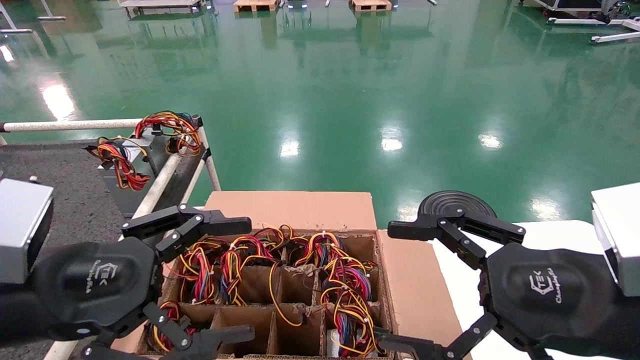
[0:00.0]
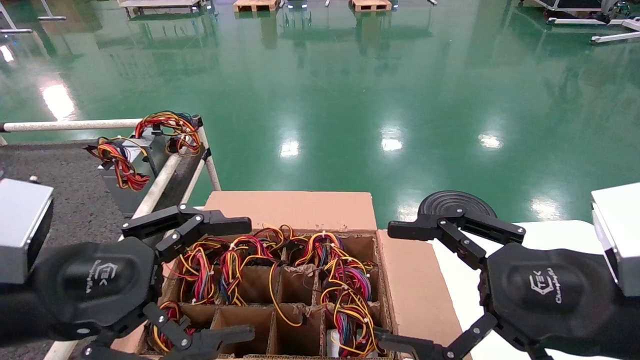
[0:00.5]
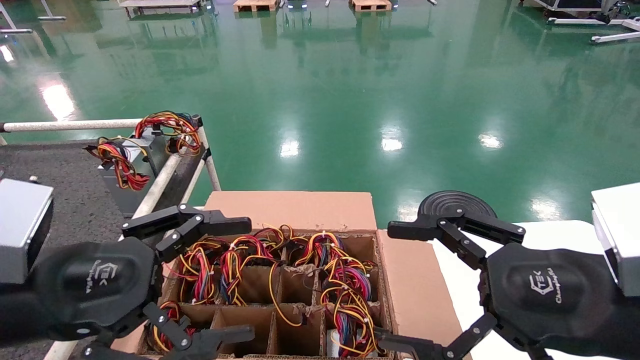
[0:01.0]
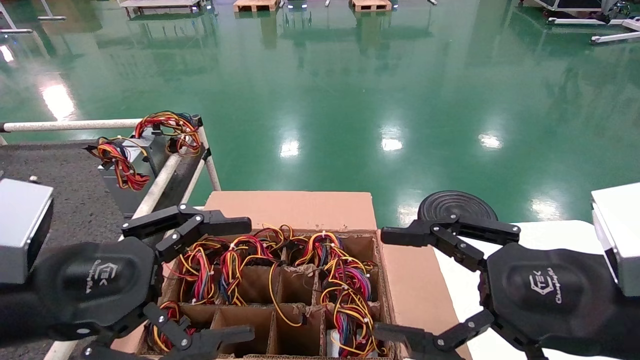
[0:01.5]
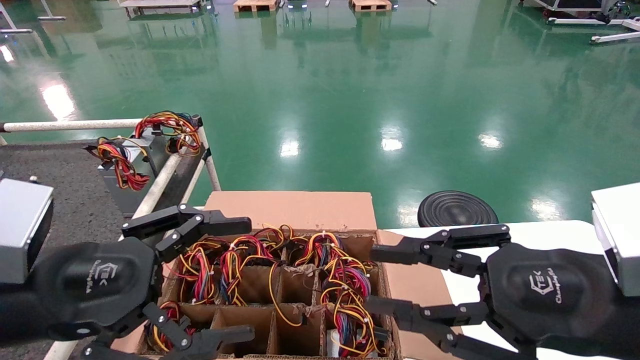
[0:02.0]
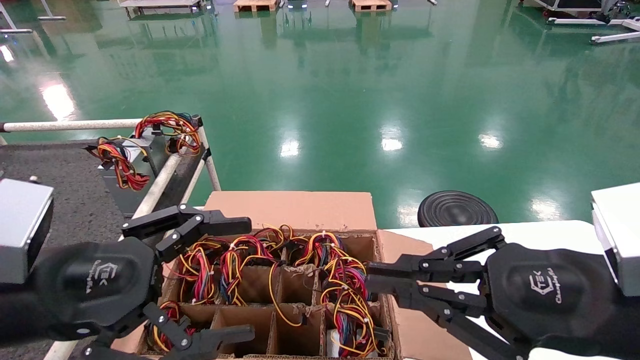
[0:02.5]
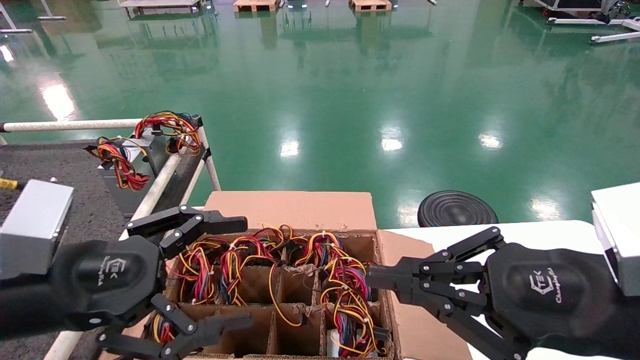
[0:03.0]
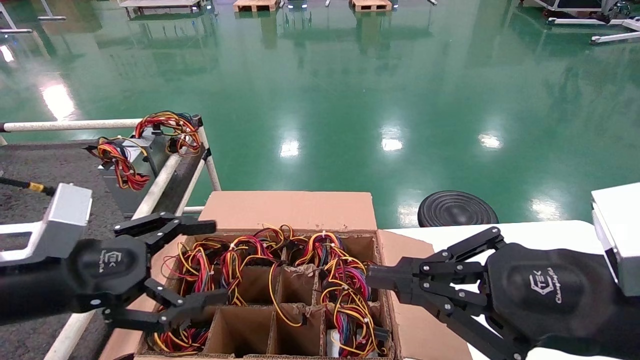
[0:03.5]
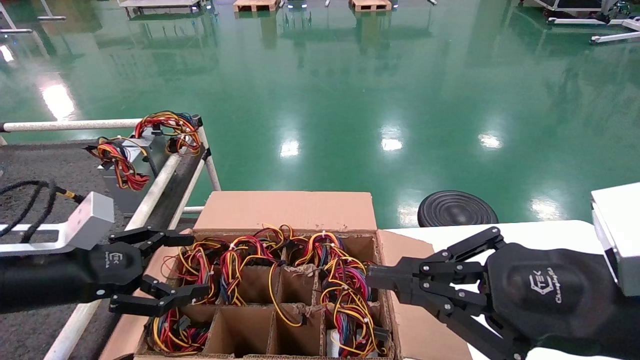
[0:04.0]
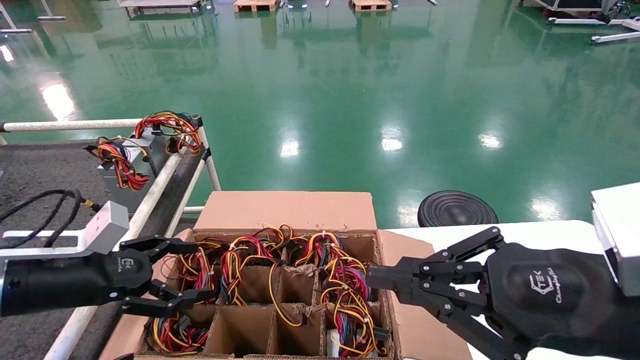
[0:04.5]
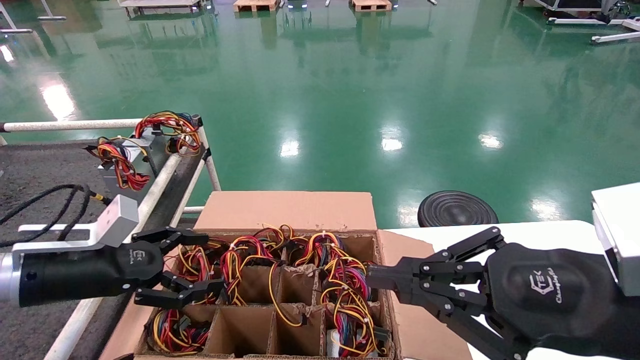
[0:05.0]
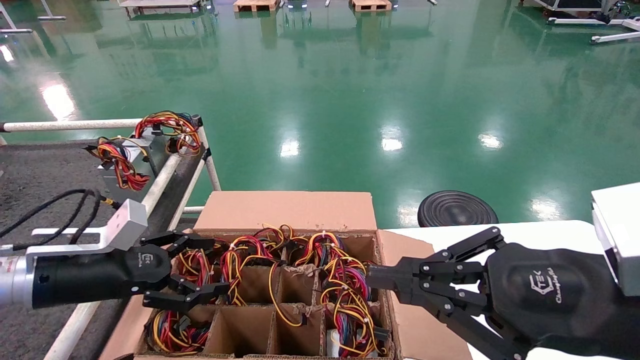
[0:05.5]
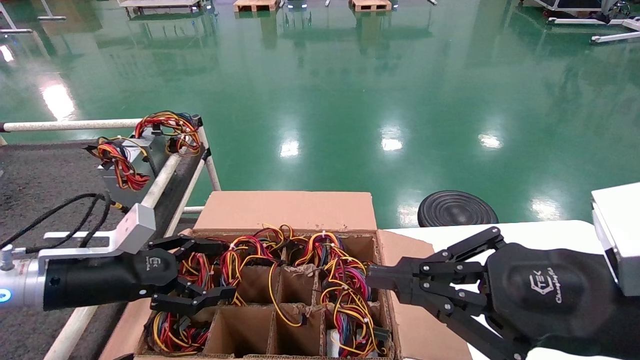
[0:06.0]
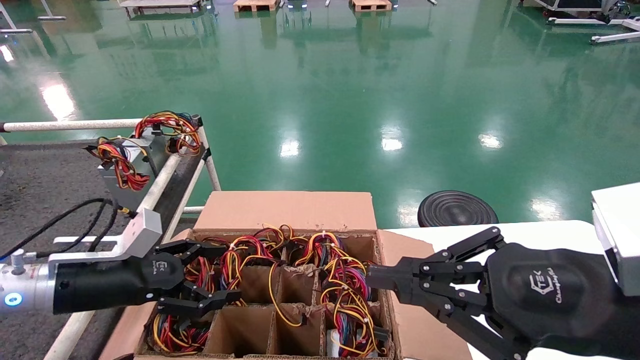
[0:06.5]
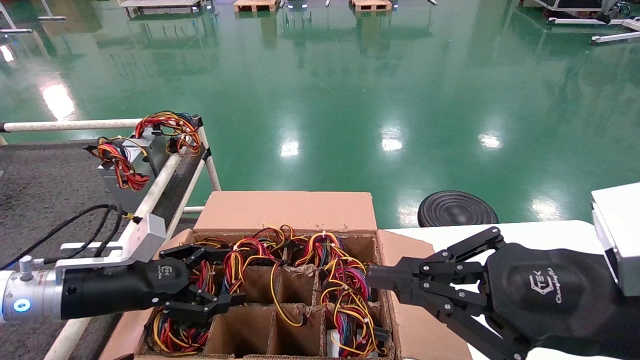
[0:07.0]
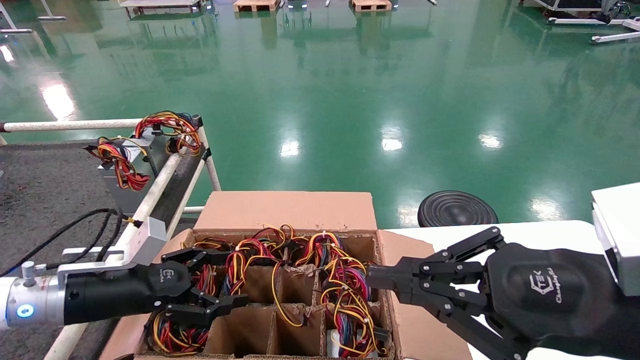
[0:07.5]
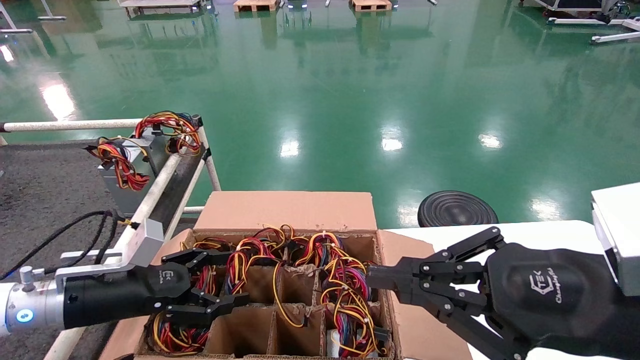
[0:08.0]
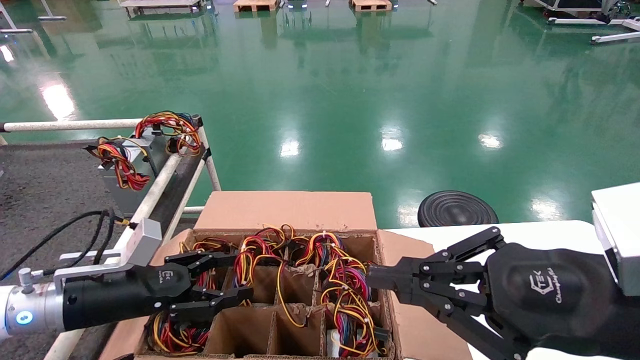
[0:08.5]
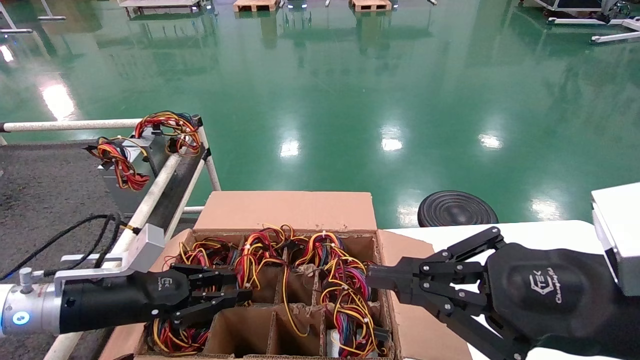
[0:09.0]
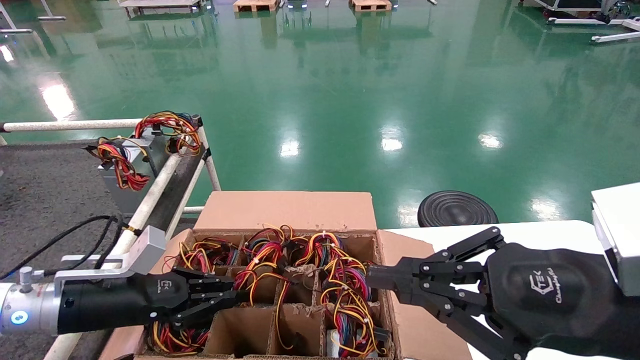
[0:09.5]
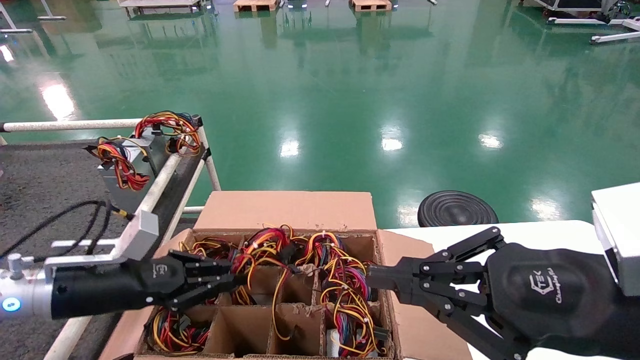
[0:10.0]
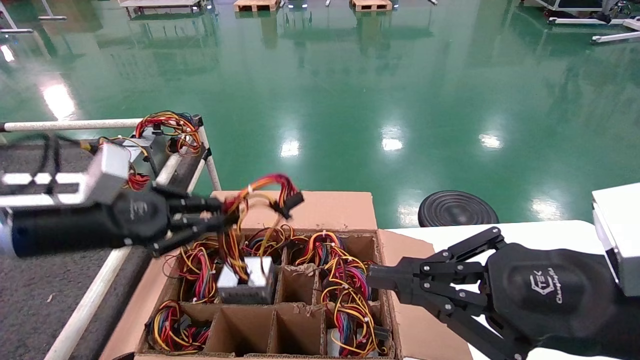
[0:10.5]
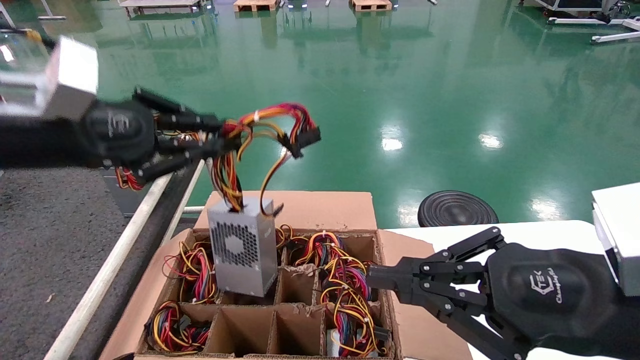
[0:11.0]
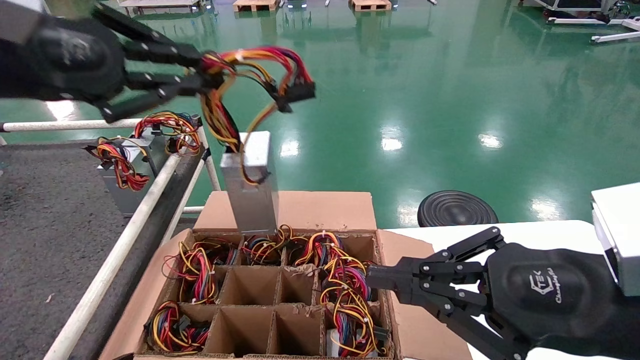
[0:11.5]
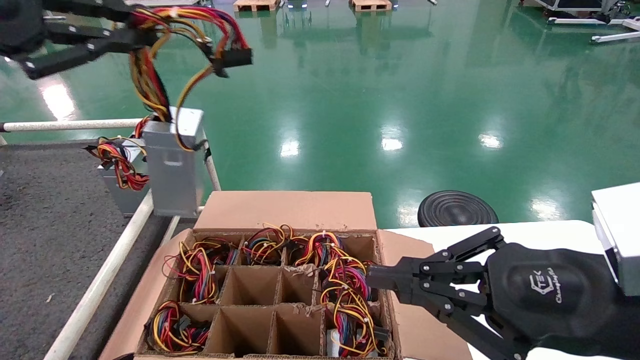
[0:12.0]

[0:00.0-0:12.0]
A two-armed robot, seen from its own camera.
Step, 0:03.5 to 0:09.0: Grab and lift the power supply from the large box.
0:00.0 to 0:02.0: The right gripper closes up.
0:02.0 to 0:04.0: The right gripper closes its fingers; the left gripper heads forward and to the left, covering some 10 cm.
0:04.0 to 0:06.0: The left gripper ends up approximately 5 cm from where it was.
0:06.0 to 0:08.0: The grippers stay close to where they were, moving slightly.
0:08.0 to 0:10.0: The left gripper closes up.
0:10.0 to 0:12.0: The left gripper shifts about 30 cm upward.

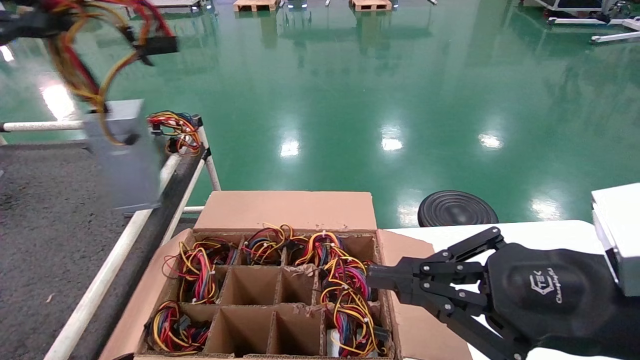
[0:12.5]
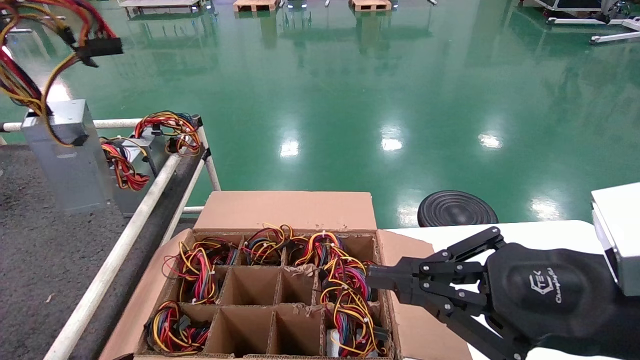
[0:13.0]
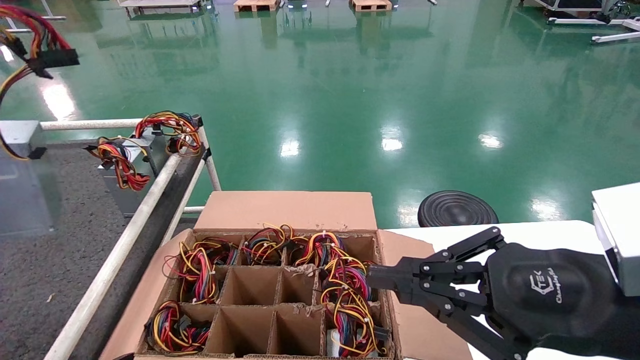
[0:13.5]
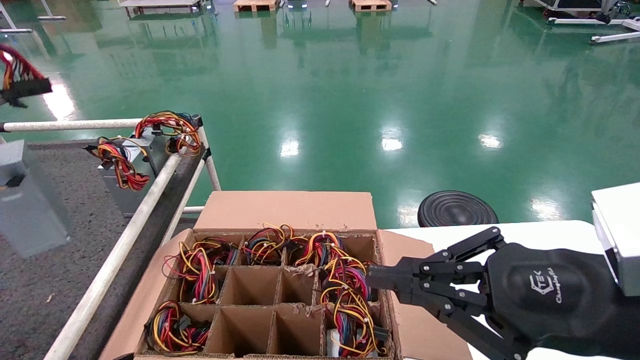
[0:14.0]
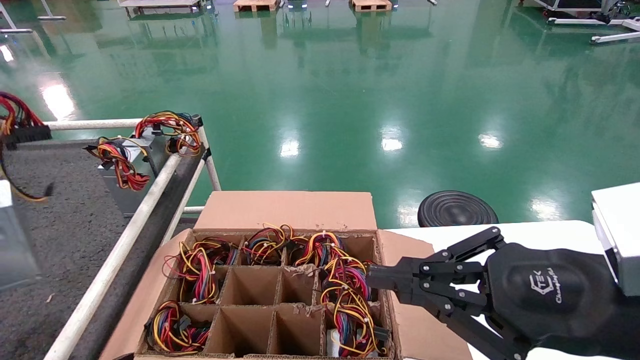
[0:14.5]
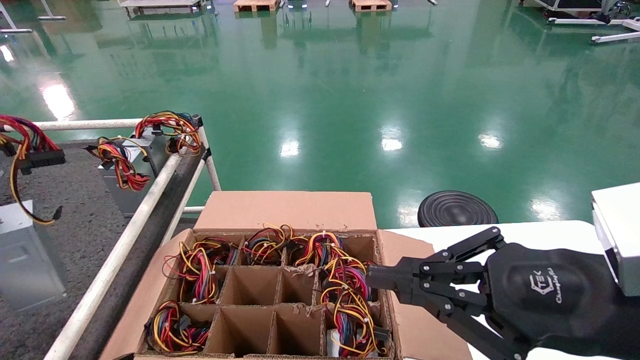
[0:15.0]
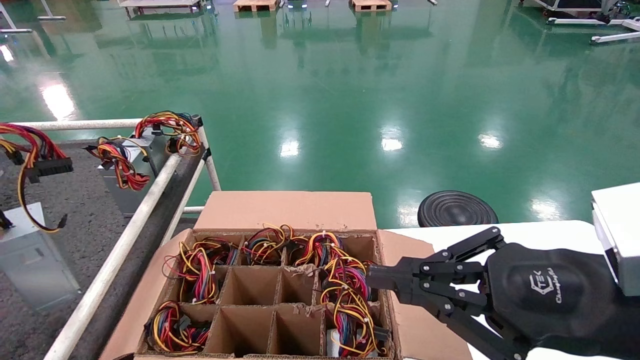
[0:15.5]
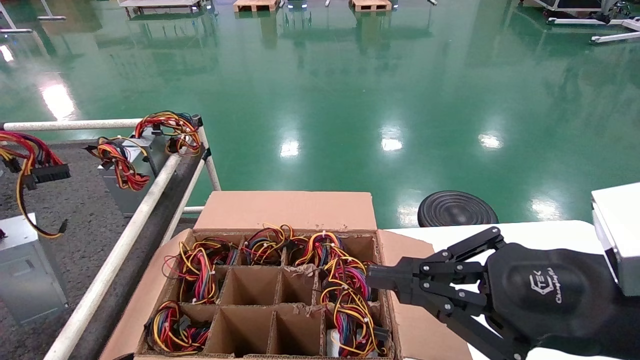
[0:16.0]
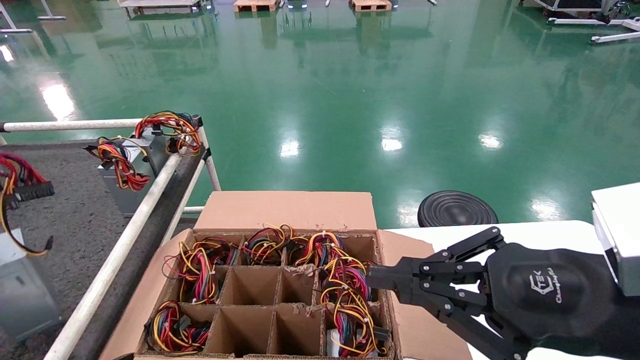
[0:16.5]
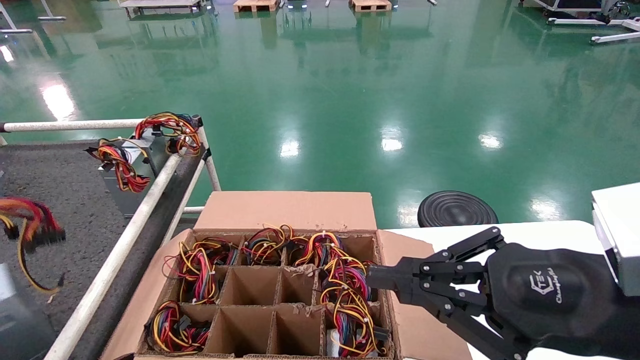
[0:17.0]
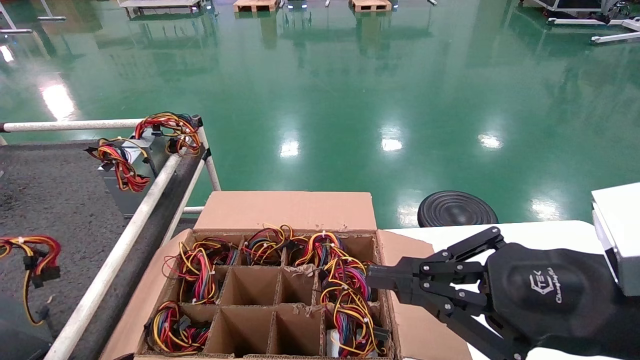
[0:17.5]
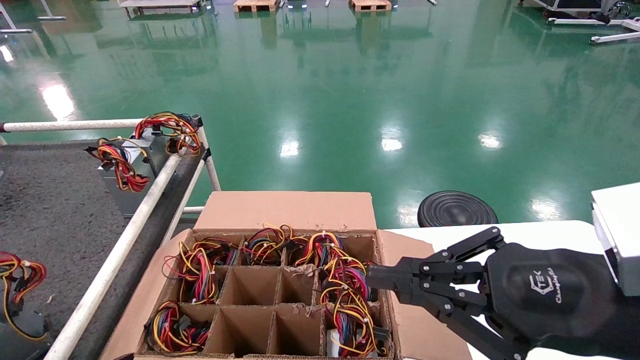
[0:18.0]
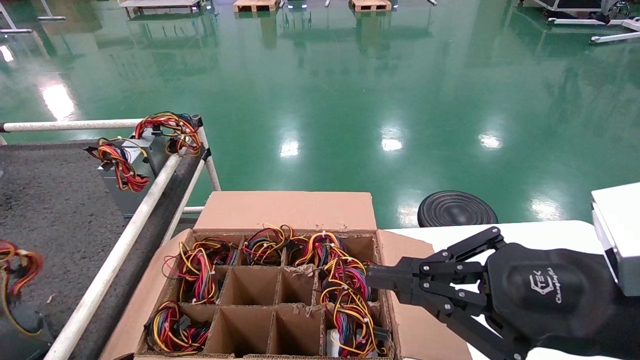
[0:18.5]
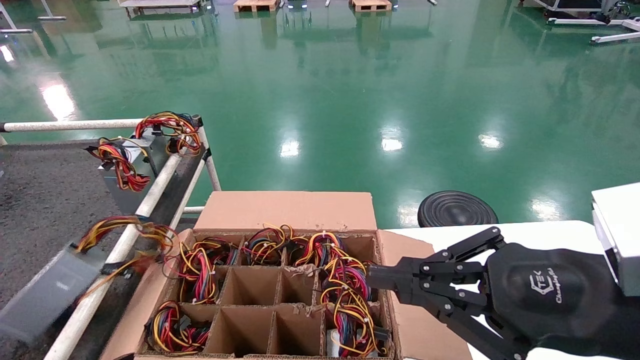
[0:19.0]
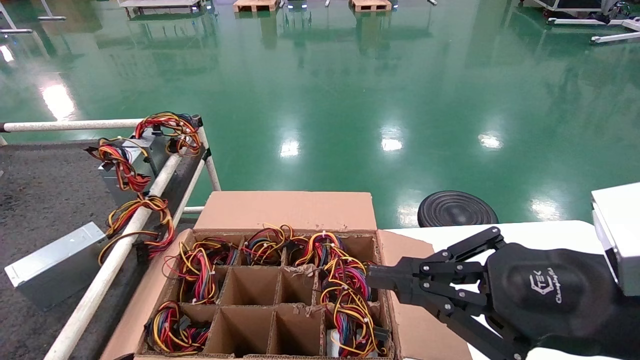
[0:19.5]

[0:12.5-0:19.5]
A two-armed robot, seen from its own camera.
Step, 0:12.5 to 0:18.0: Place the power supply on the operating table.
0:12.5 to 0:14.5: The left gripper heads to the left, downward and backward, covering approximately 15 cm.
0:14.5 to 0:16.0: The grippers make only small movements.
0:16.0 to 0:17.5: The left gripper travels downward by about 10 cm.
0:17.5 to 0:19.5: The left gripper opens.
